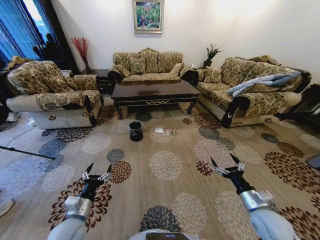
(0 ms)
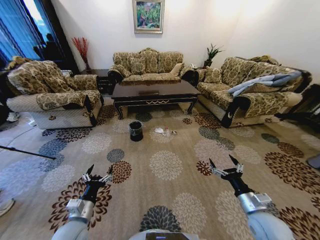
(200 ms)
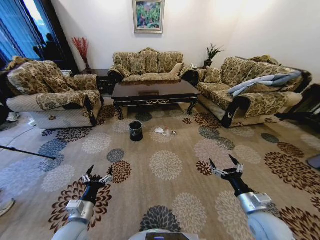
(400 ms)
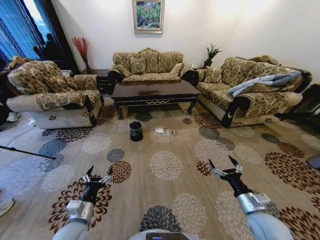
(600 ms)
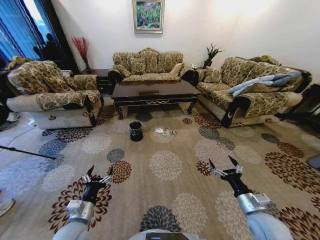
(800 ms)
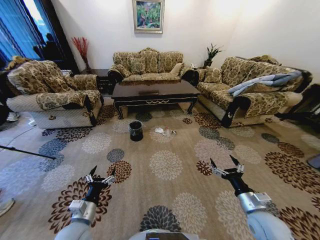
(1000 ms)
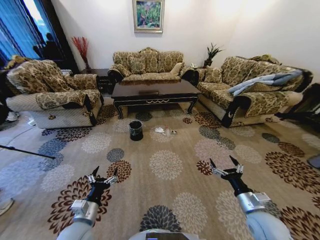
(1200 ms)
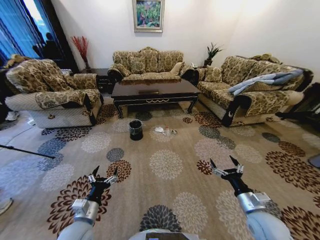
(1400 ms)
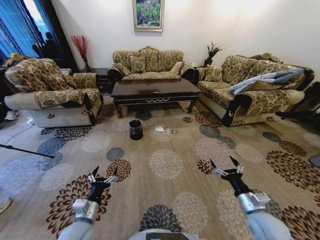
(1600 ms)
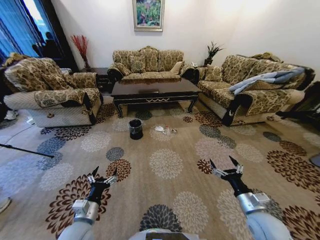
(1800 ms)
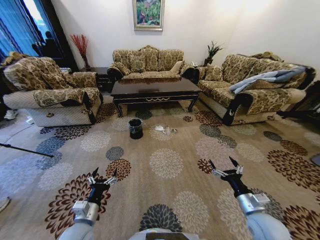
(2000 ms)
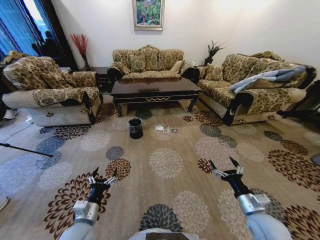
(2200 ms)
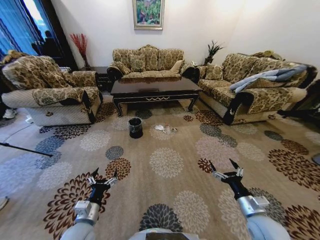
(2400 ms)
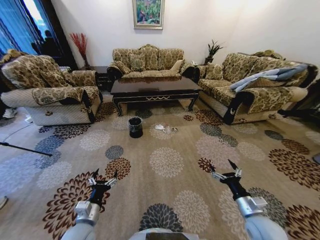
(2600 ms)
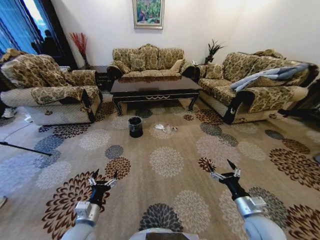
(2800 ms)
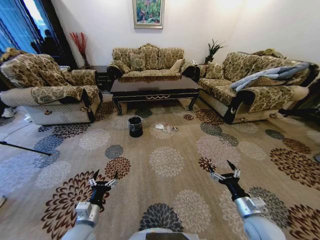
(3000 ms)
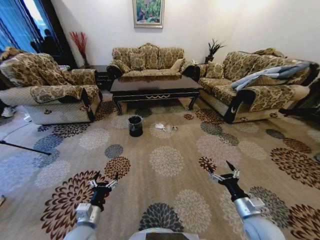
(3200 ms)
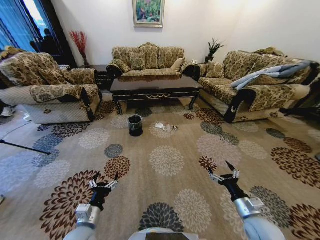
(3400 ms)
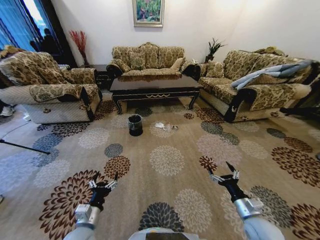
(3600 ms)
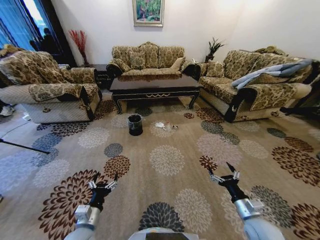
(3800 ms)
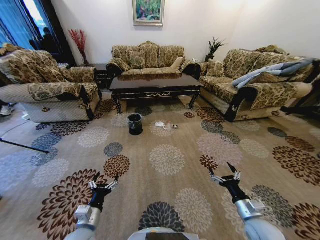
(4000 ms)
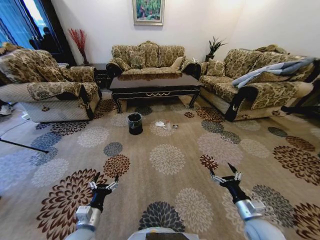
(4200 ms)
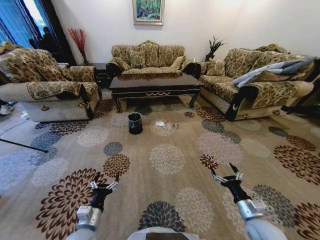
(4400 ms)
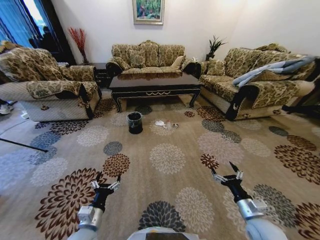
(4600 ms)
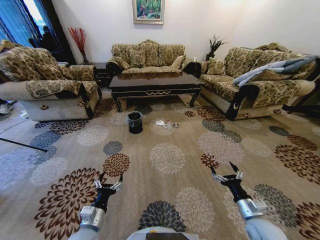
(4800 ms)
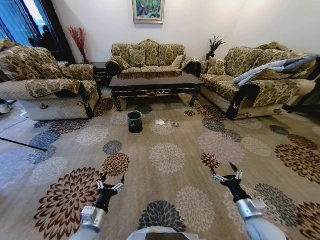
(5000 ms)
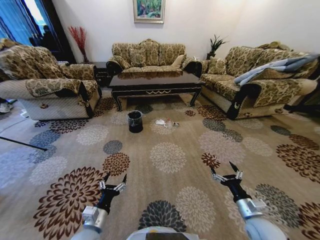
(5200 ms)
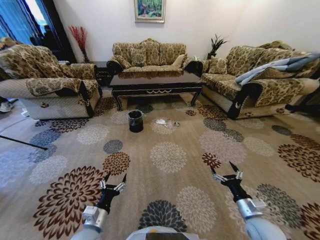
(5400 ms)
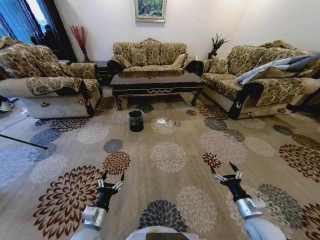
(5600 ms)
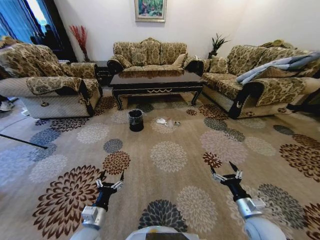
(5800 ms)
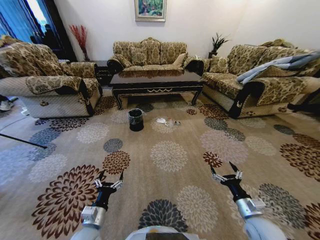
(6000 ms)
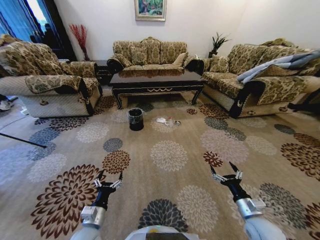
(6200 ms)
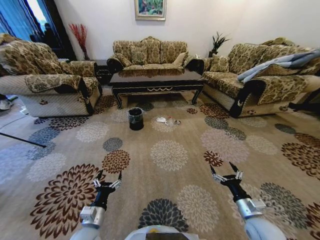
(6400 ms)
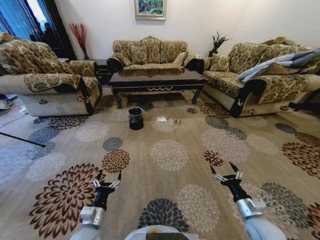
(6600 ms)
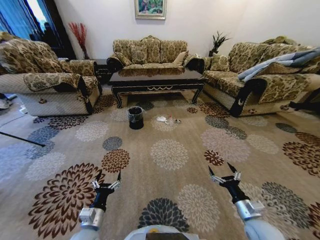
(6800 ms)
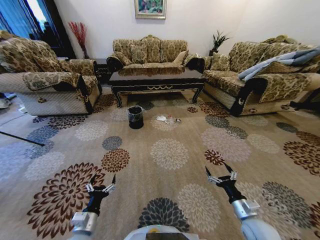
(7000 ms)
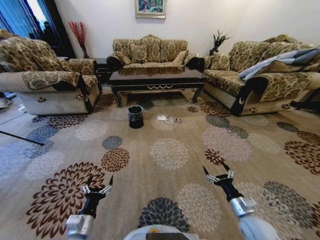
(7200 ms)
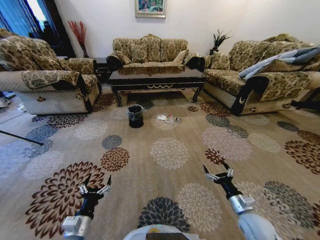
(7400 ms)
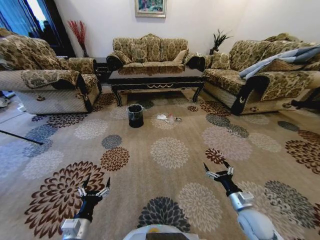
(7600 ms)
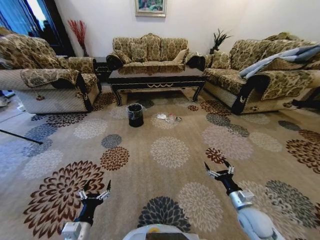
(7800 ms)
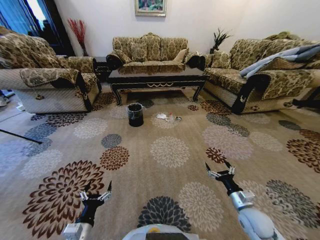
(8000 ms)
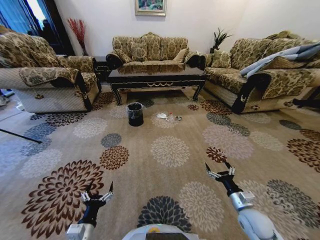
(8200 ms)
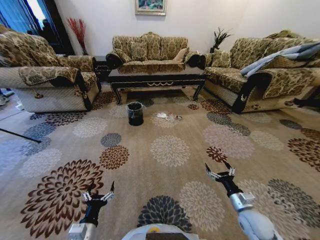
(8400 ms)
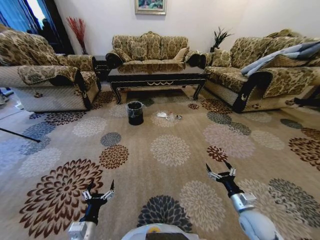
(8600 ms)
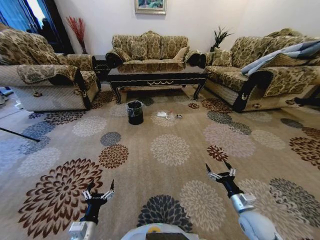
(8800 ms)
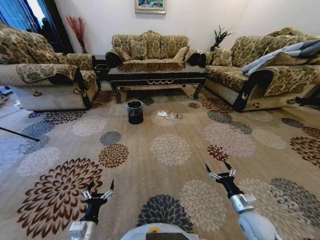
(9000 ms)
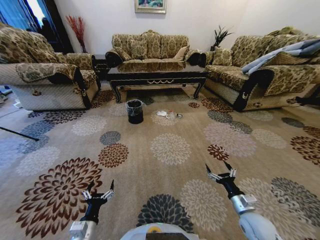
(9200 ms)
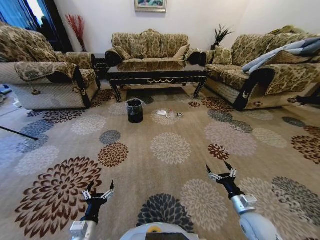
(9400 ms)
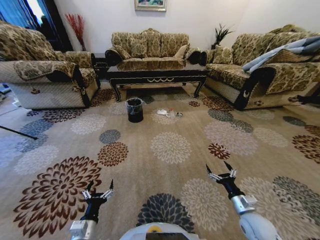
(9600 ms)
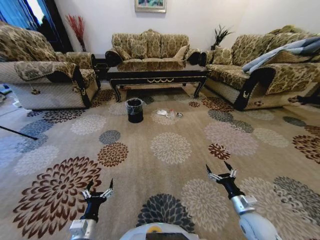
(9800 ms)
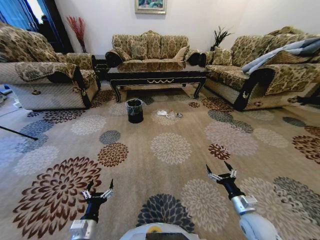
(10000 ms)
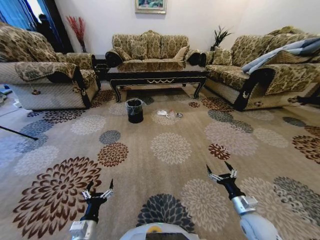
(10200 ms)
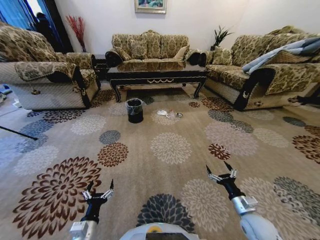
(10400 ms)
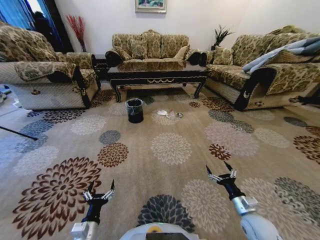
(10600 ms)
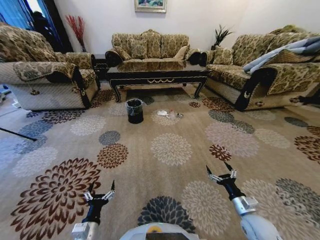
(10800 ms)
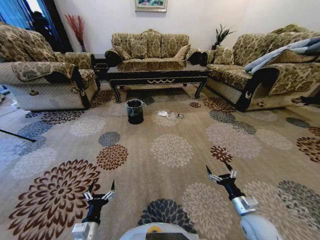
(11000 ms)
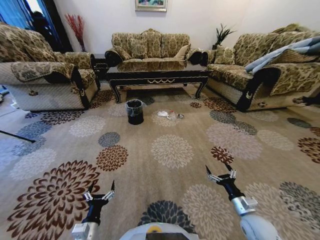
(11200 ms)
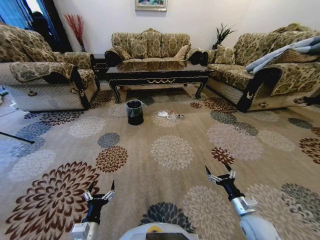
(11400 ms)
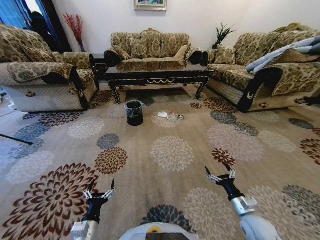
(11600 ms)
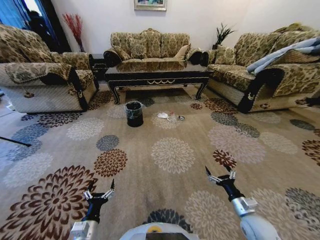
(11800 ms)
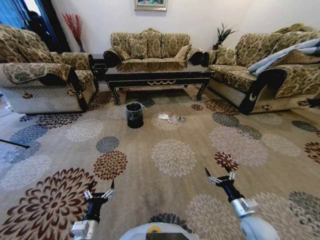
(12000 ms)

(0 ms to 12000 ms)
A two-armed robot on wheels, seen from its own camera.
Task of the whole recording: Move to the front of the table and pick up the trash from the floor, then place it into the trash bin.
6000 ms - 7600 ms: The left gripper ends up approximately 5 cm from where it was.
9000 ms - 10400 ms: Both grippers stay about where they are.

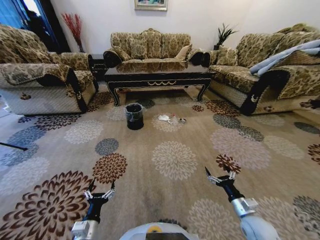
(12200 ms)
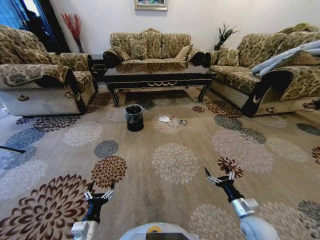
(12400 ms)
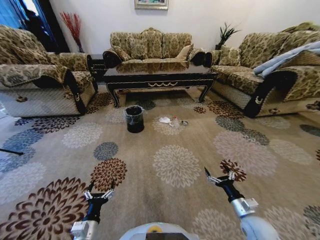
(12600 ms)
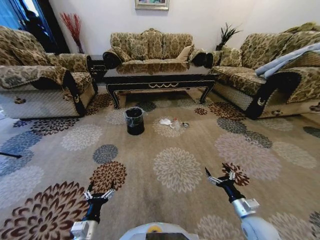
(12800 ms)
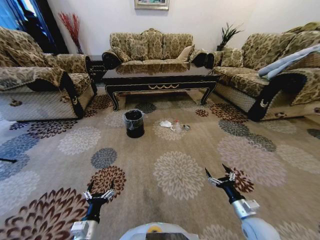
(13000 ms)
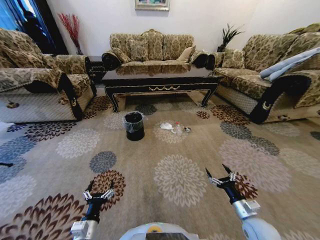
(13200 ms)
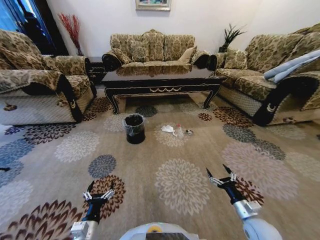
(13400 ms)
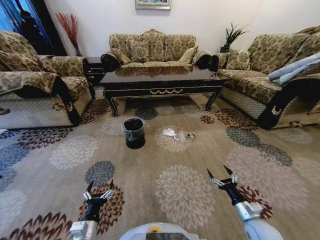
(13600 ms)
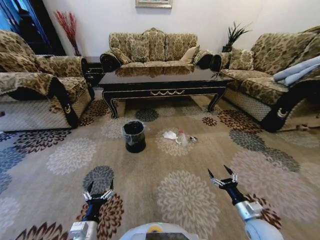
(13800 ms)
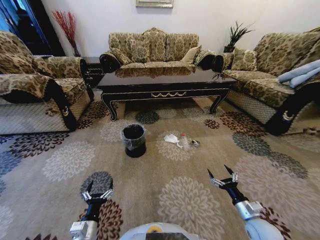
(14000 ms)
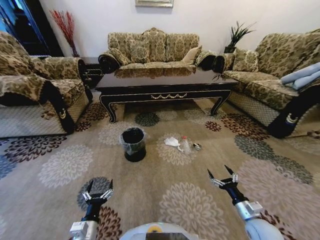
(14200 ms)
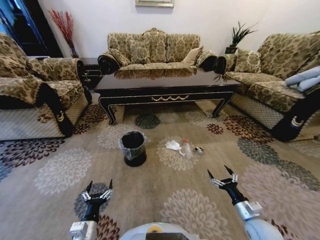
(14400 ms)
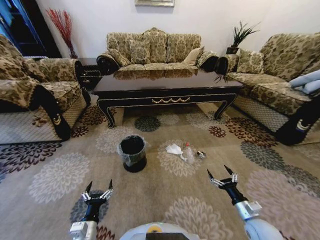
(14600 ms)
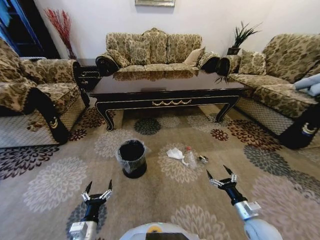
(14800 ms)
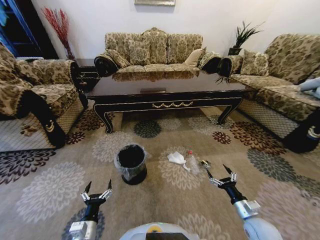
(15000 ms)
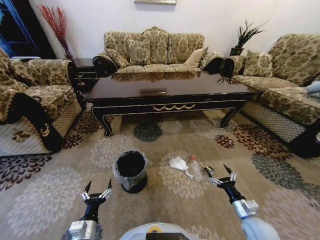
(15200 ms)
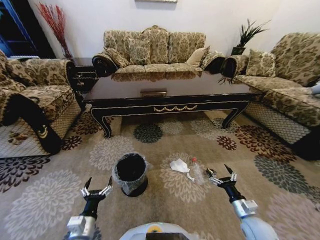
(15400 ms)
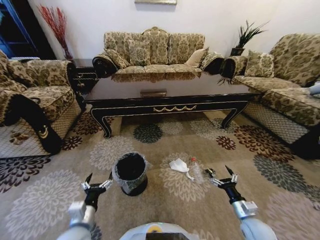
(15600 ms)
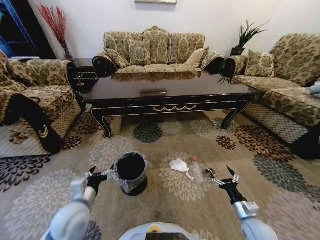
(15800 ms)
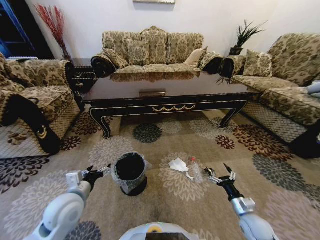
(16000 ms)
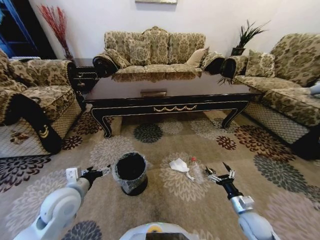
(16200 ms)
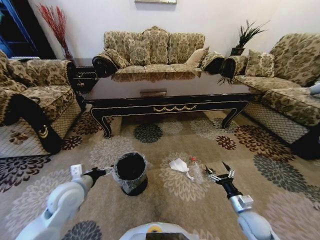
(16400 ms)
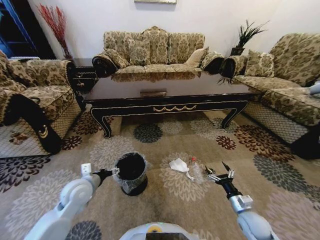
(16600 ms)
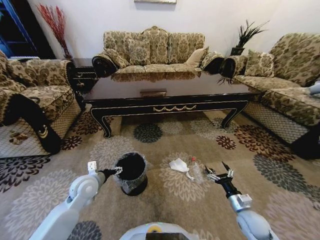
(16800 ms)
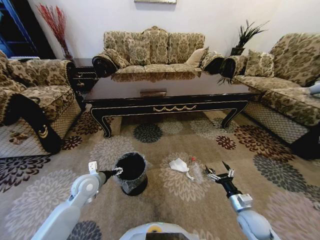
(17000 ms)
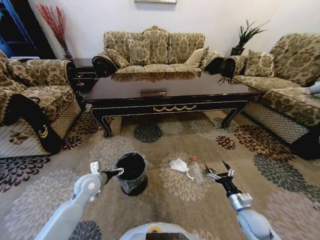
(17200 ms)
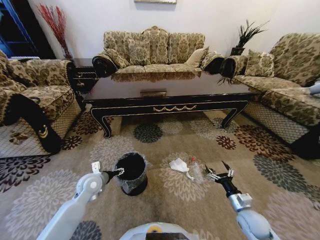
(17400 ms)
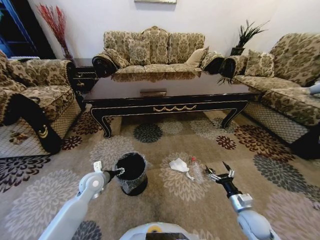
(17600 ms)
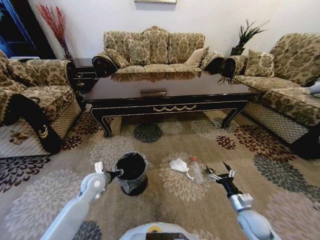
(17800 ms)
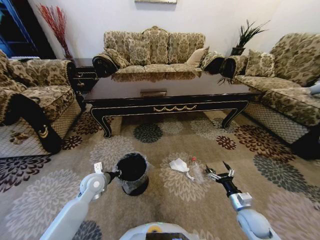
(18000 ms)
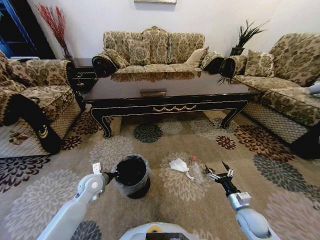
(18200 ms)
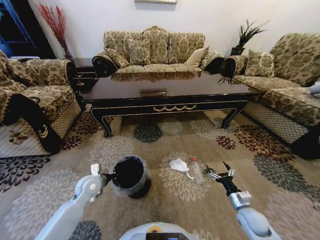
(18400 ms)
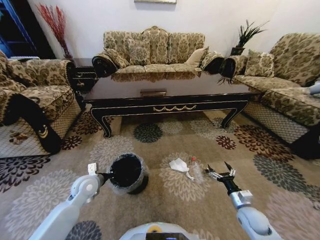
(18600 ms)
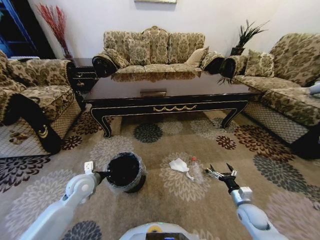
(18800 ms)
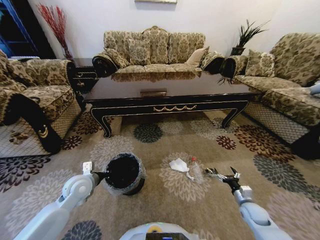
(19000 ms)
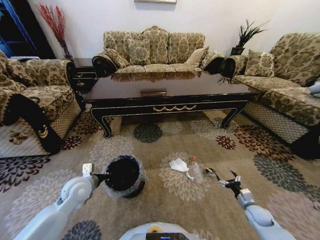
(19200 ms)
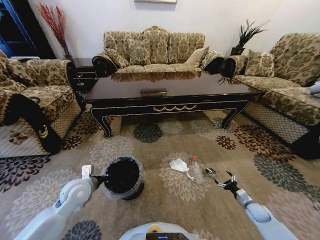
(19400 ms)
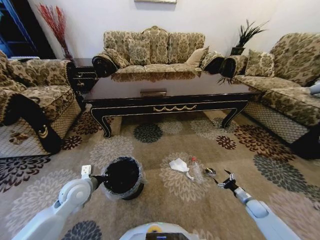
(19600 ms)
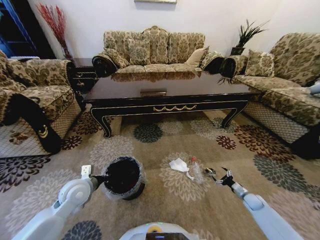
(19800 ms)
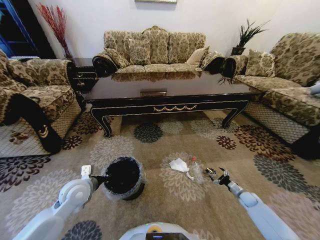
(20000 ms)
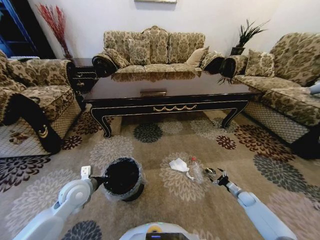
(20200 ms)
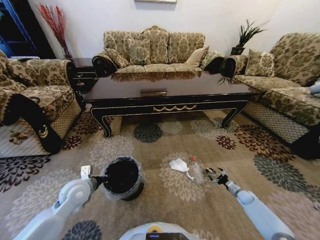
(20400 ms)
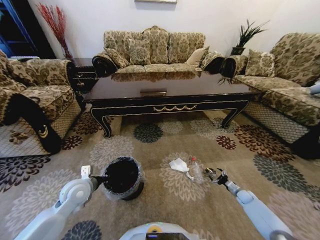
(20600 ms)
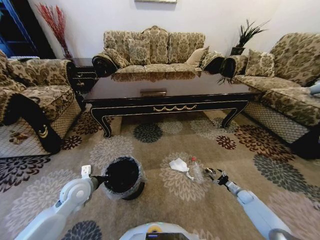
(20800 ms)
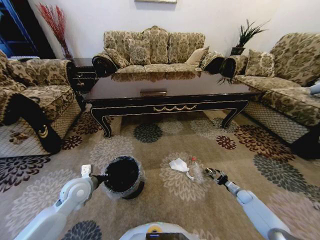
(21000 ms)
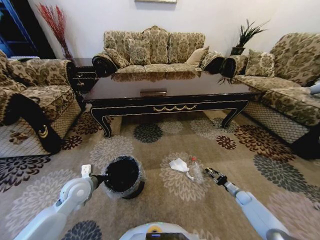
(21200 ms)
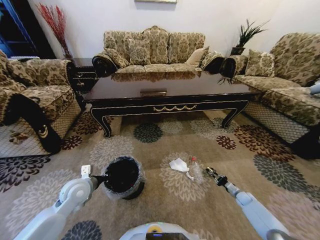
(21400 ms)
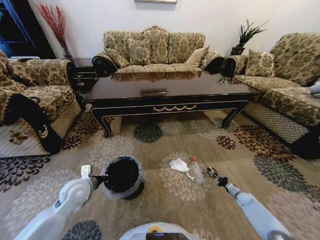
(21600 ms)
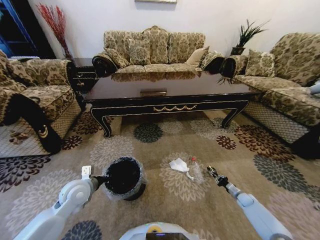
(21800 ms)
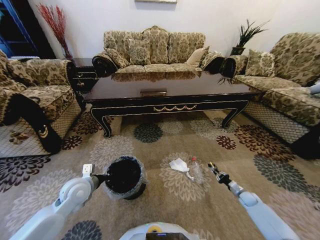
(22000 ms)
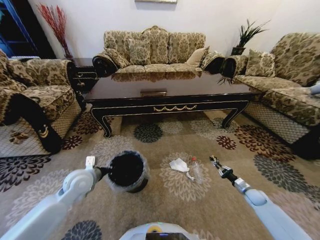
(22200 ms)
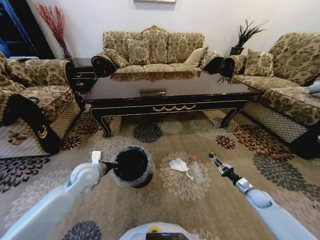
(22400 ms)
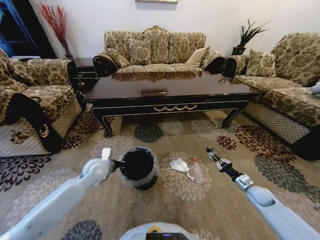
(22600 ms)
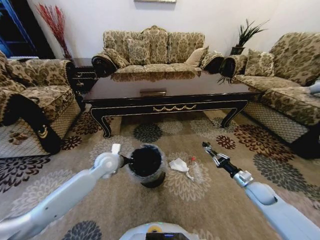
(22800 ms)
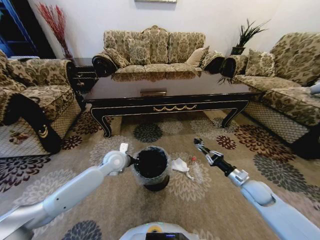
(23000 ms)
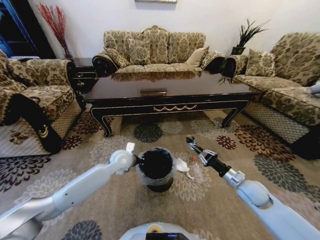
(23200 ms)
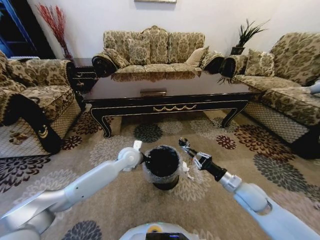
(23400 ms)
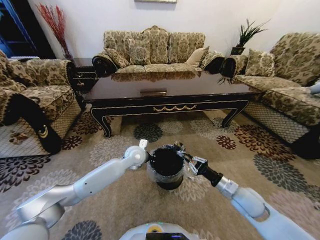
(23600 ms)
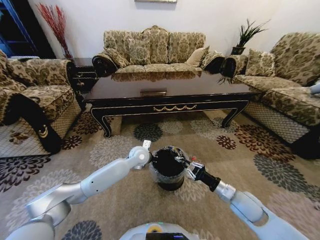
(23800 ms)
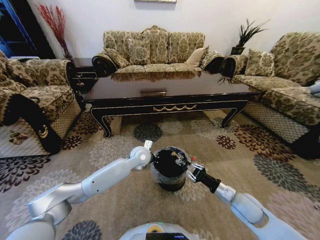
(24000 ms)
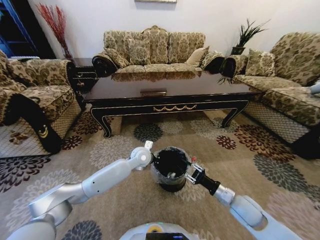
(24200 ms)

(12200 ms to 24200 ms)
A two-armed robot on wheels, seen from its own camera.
Task of the whole recording: Move to the front of the table and pick up the trash from the floor, then place it into the trash bin.
15200 ms - 16600 ms: The left gripper goes approximately 20 cm forward and upward.
16600 ms - 18200 ms: The left gripper is displaced downward by some 5 cm, and closes.
18200 ms - 19800 ms: The right gripper shifts roughly 20 cm to the right, downward and forward. The left gripper moves upward, about 5 cm.
19800 ms - 21200 ms: The right gripper ends up some 5 cm from where it was, and closes its fingers.
21200 ms - 22600 ms: The left gripper goes some 10 cm forward and to the right; the right gripper moves upward, some 15 cm.
22600 ms - 24200 ms: The left gripper travels to the right and forward by some 20 cm; the right gripper moves to the left, upward and backward, approximately 20 cm.
